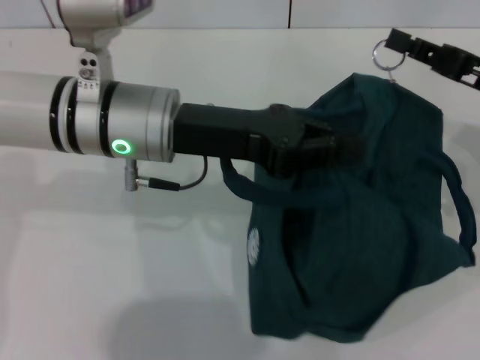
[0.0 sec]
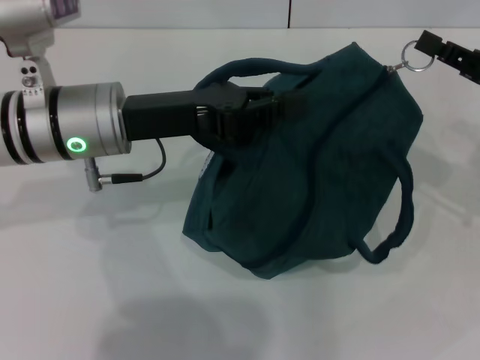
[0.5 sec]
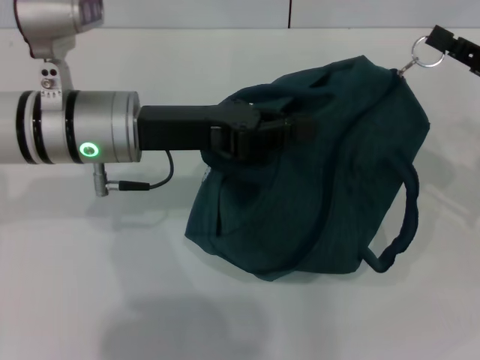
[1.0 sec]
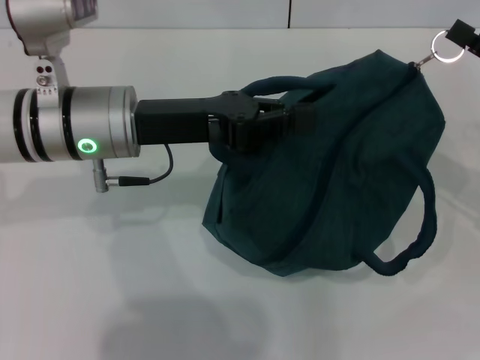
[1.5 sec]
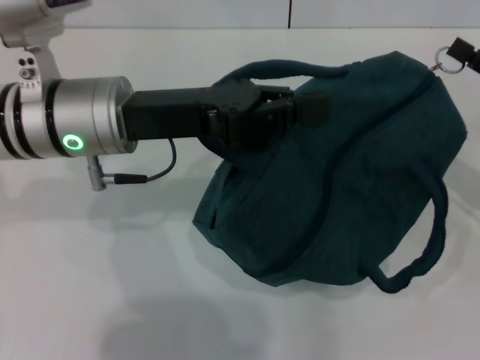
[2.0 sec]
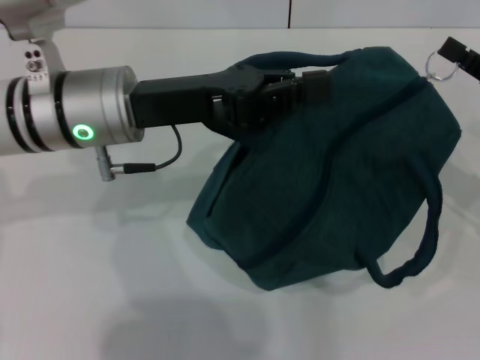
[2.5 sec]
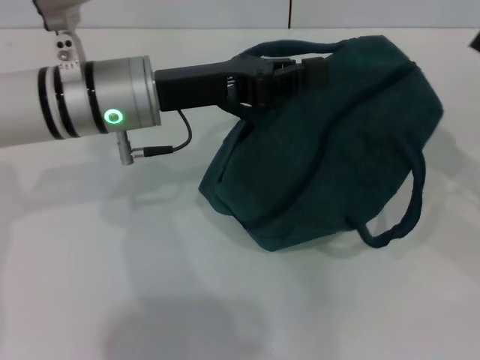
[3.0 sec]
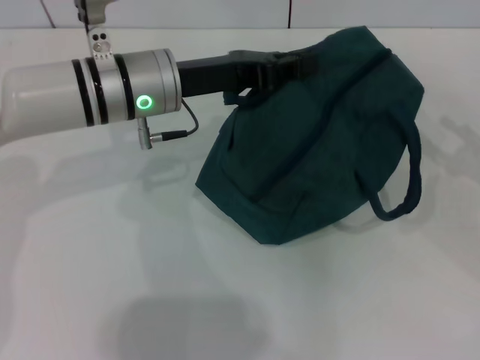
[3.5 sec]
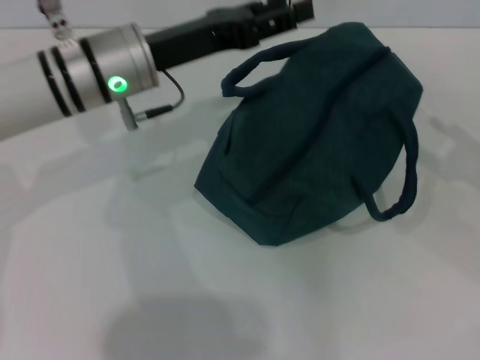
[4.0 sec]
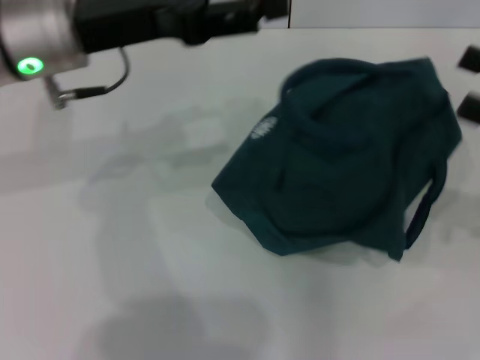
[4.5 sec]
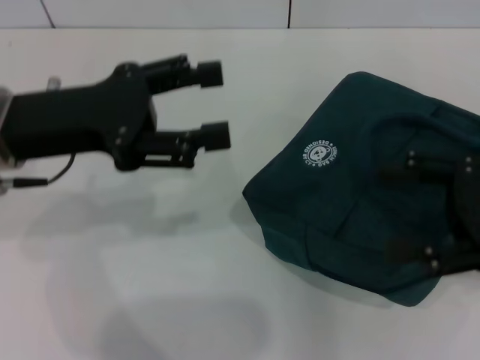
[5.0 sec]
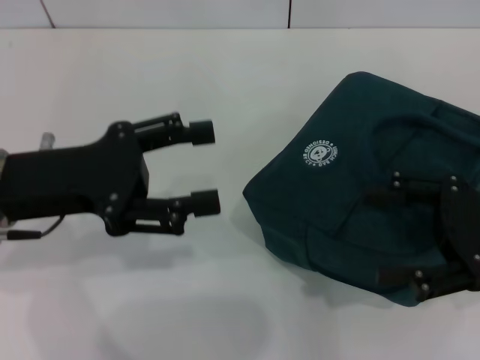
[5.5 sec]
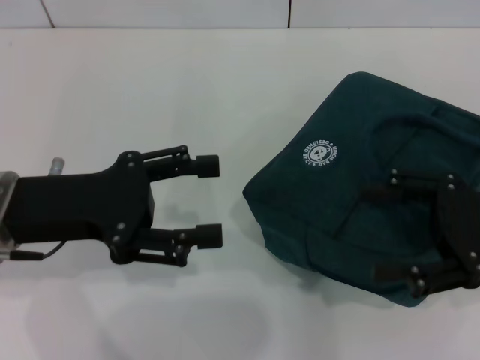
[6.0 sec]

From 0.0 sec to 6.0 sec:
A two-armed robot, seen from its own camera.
Step, from 0.0 sec to 2.5 sec: Zip up the lunch bag with your right hand.
Step, from 3.0 sec to 3.5 sec: Hold the lunch bag with your left hand.
From 0.0 sec to 2.0 sec: The right gripper ends up about 5 cm from where it was.
From 2.0 sec to 4.0 sec: The left gripper travels forward by about 5 cm, and opens its fingers. Meanwhile the right gripper moves to the right, roughly 5 cm, and opens.
From 4.0 sec to 6.0 sec: The left gripper shifts about 15 cm backward and to the left, and opens; the right gripper moves to the left, some 10 cm.
